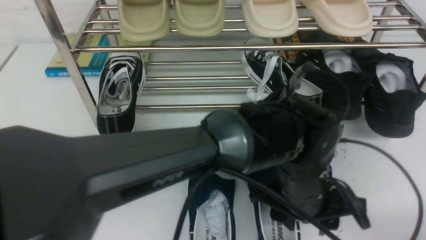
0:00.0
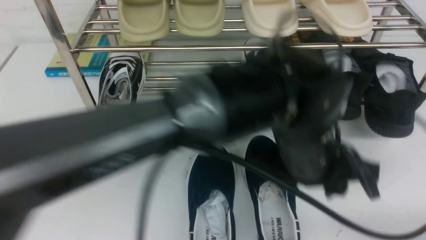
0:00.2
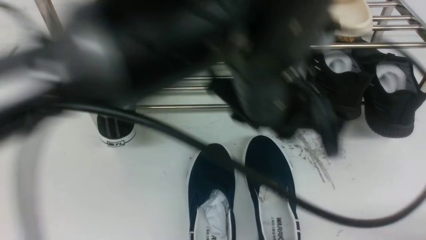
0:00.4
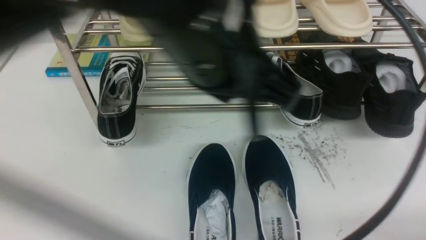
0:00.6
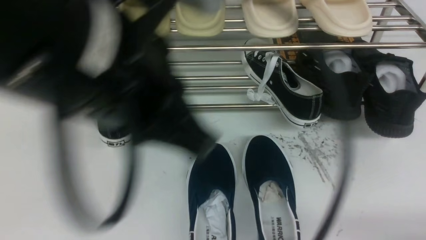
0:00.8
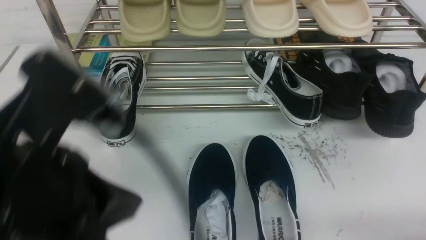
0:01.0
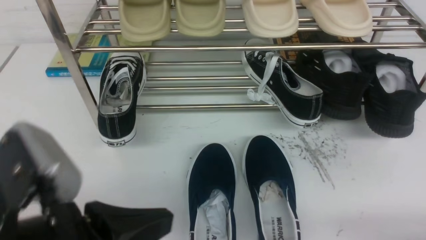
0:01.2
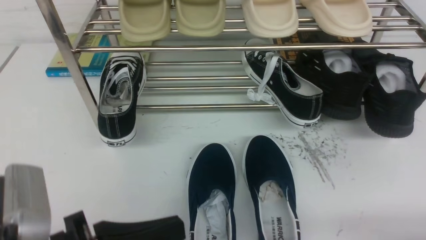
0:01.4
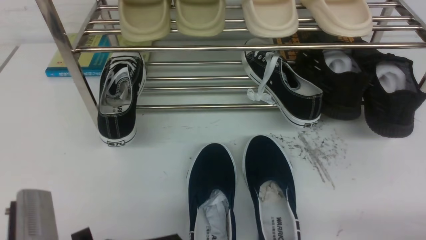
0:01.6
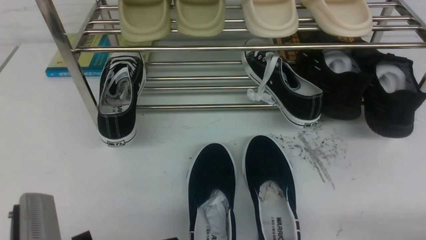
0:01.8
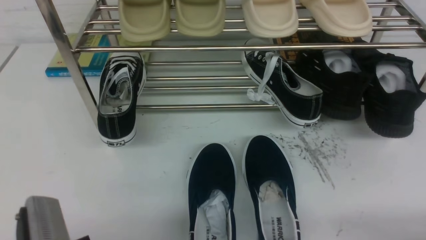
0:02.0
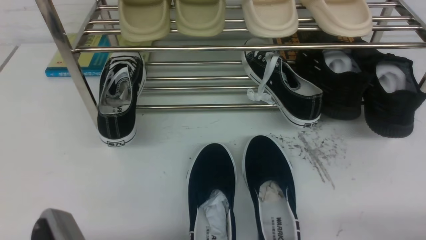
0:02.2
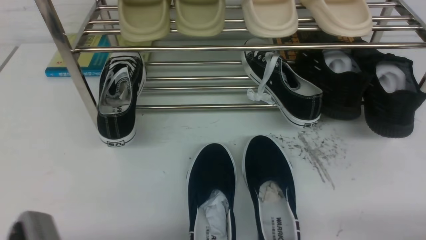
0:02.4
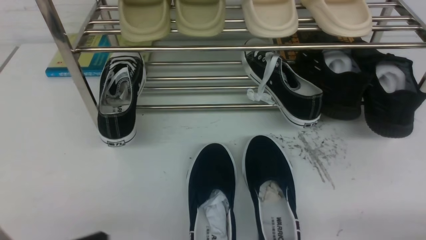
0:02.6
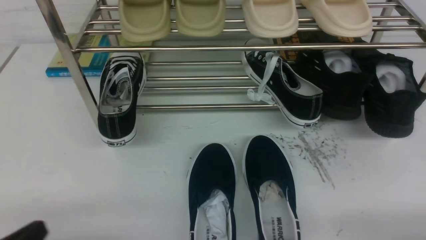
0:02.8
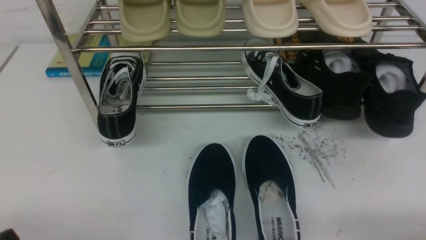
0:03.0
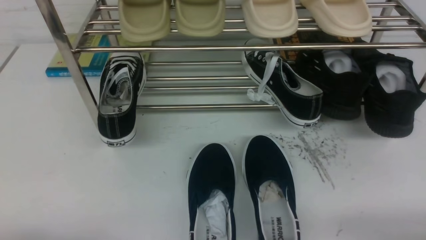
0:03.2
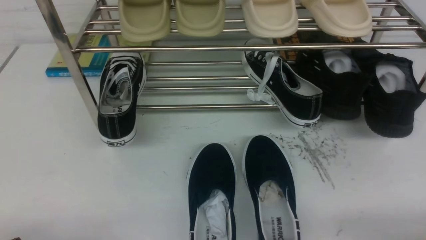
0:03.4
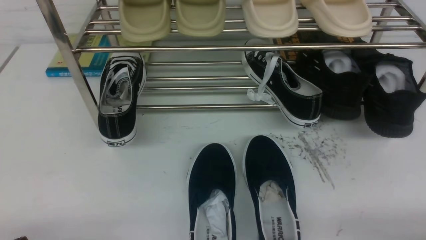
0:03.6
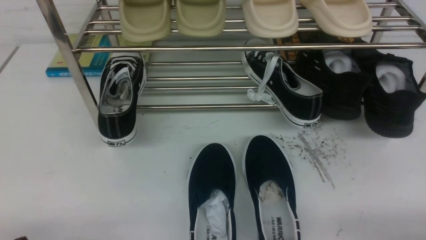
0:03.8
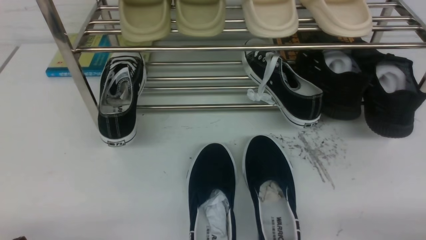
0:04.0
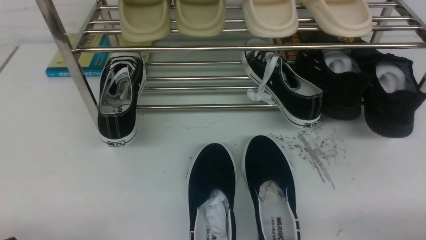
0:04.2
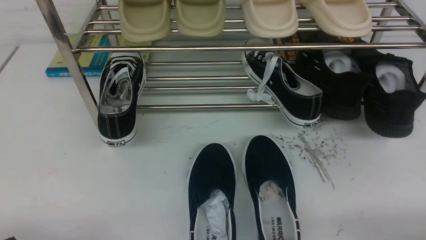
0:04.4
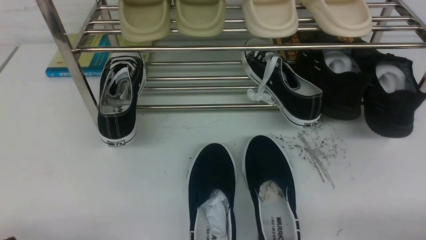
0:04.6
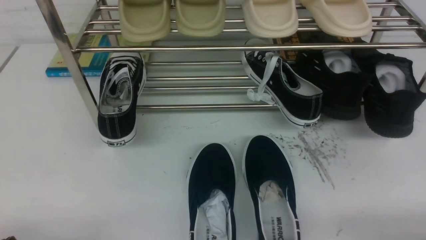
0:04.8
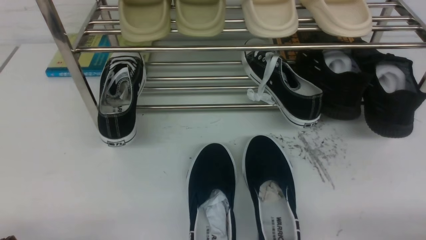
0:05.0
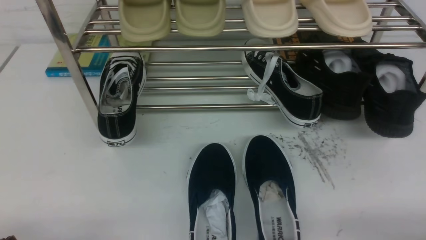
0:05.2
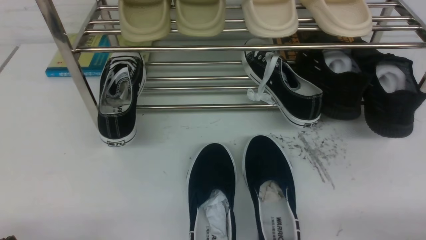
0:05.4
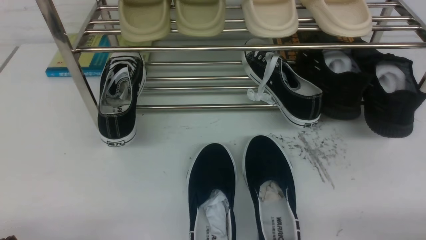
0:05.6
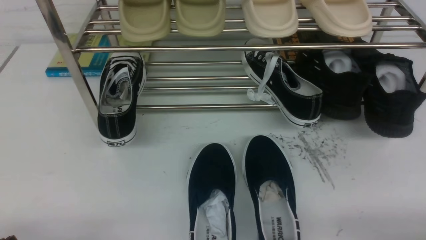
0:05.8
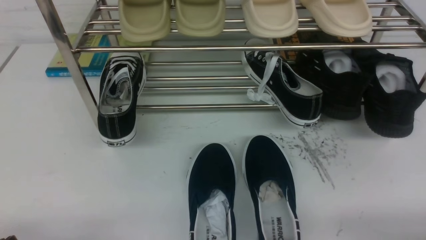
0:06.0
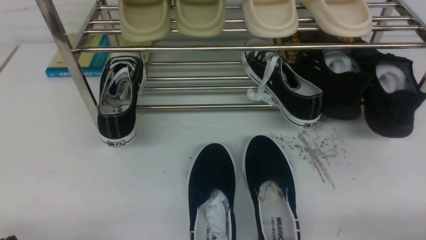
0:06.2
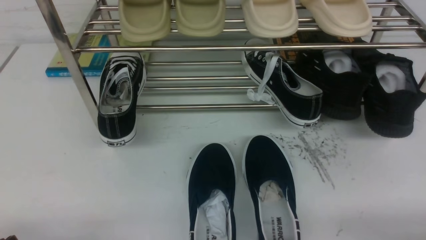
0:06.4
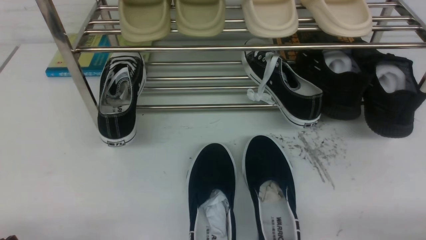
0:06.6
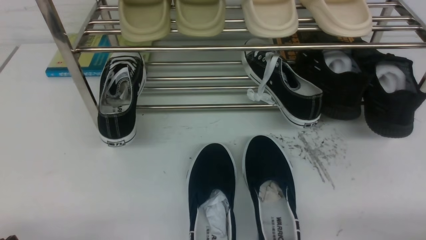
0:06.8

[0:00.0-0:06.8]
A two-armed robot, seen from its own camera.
0:00.0 to 0:01.4: The left gripper heads to the left and backward, covering about 30 cm, and closes.
0:01.4 to 0:02.8: The left gripper is displaced to the left and downward by some 10 cm.
0:04.0 to 0:06.8: Neither gripper changes place.

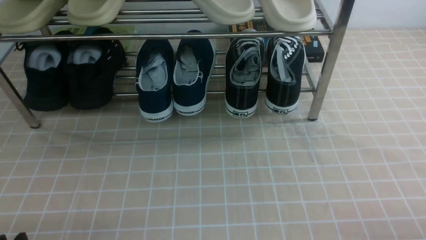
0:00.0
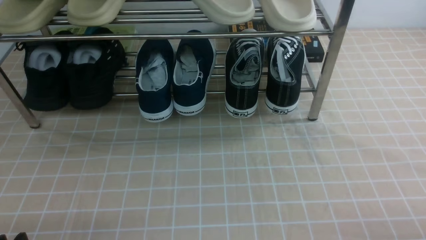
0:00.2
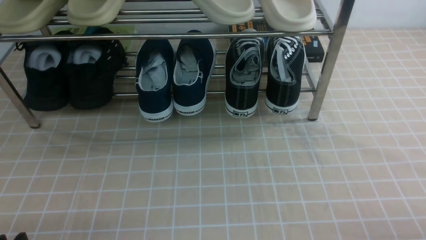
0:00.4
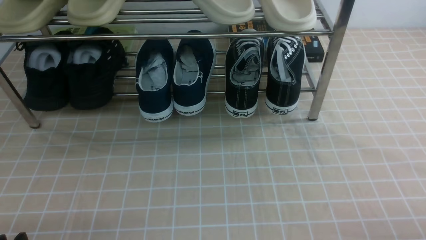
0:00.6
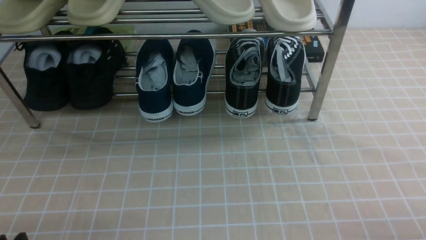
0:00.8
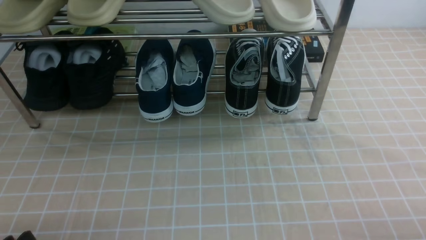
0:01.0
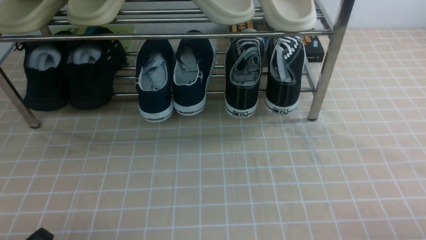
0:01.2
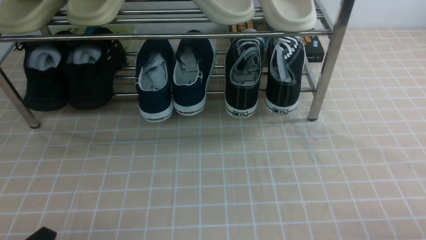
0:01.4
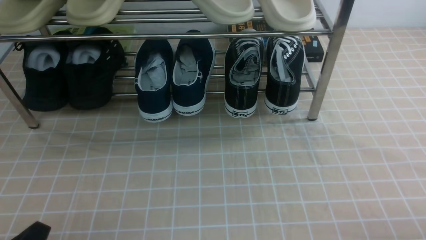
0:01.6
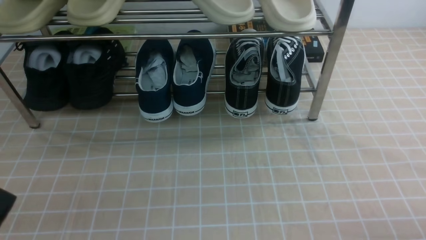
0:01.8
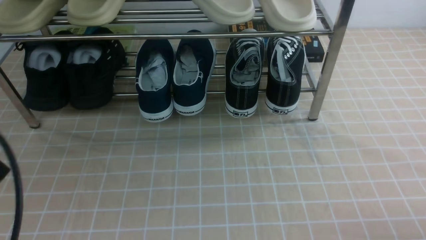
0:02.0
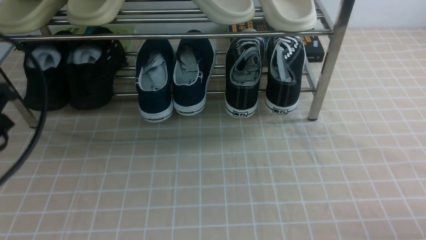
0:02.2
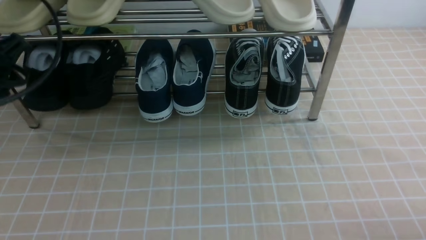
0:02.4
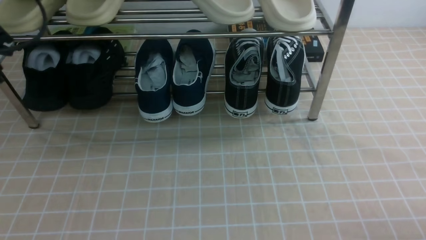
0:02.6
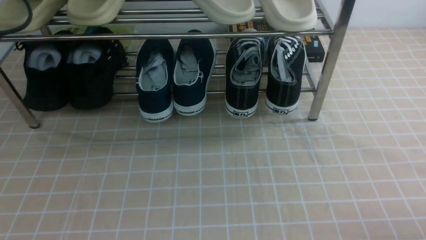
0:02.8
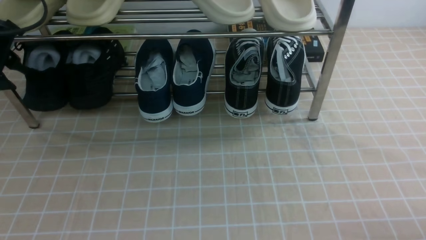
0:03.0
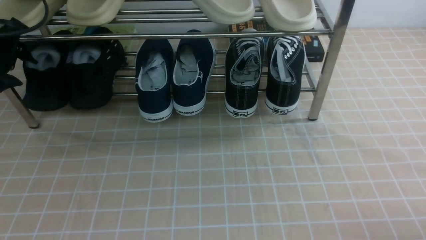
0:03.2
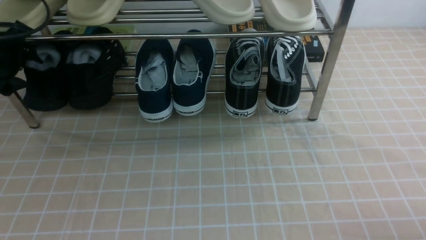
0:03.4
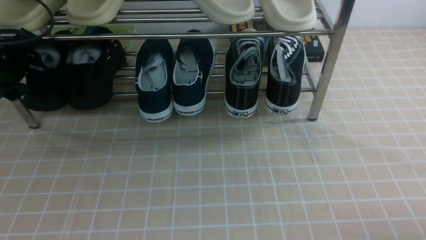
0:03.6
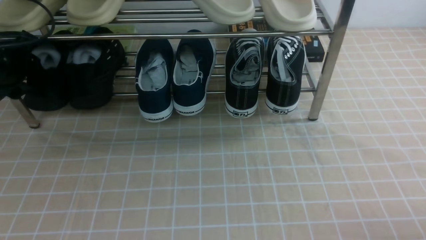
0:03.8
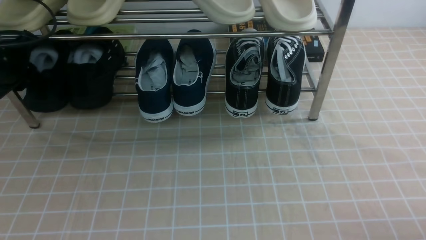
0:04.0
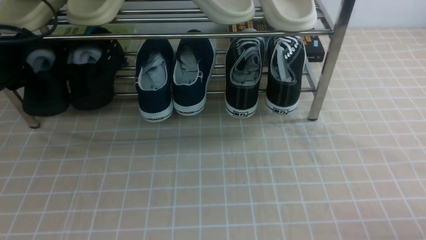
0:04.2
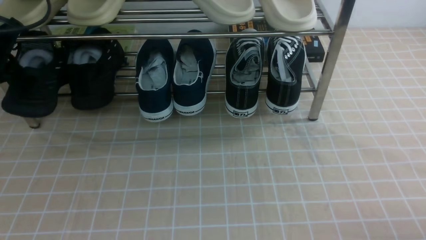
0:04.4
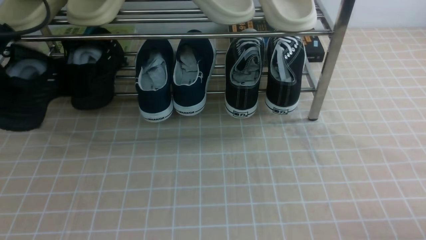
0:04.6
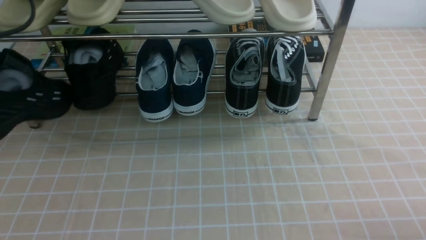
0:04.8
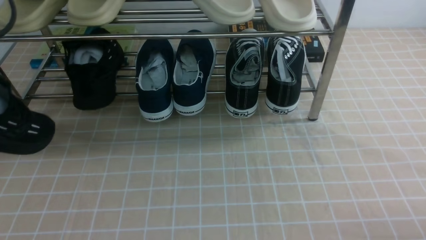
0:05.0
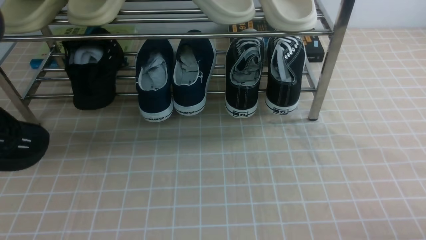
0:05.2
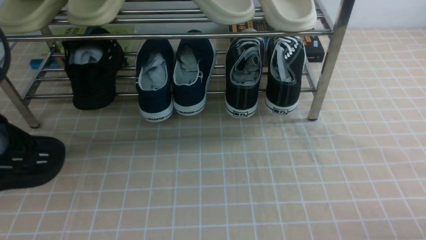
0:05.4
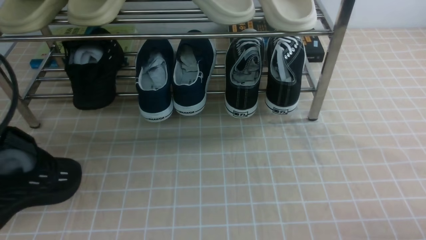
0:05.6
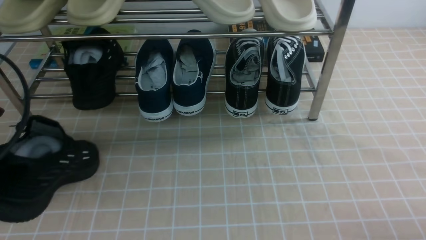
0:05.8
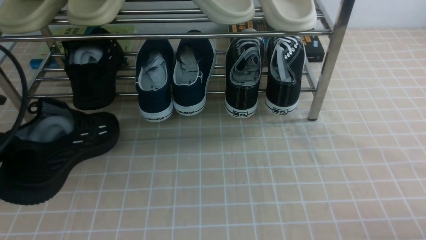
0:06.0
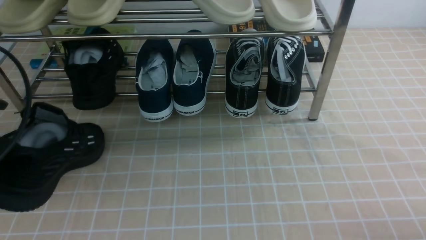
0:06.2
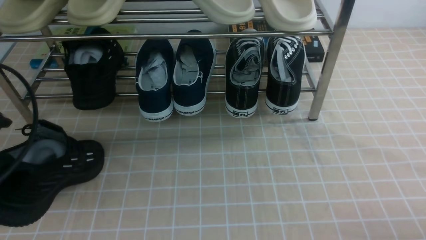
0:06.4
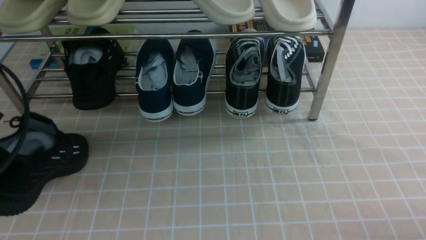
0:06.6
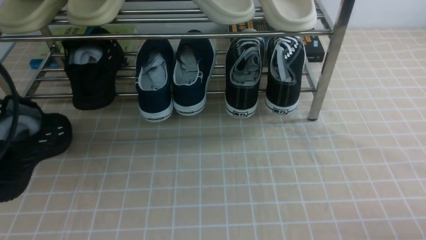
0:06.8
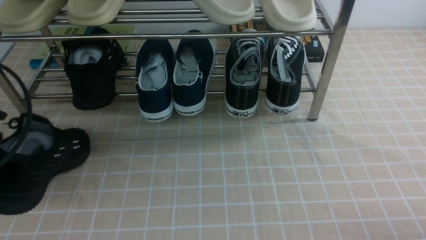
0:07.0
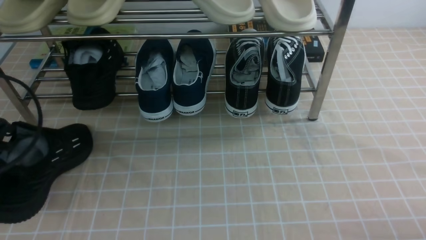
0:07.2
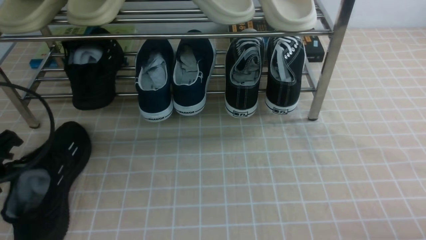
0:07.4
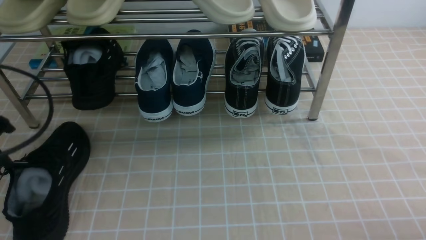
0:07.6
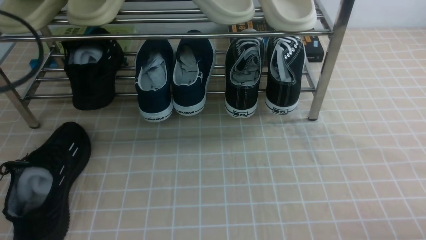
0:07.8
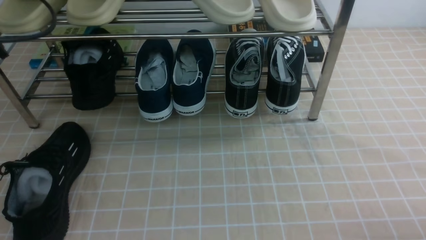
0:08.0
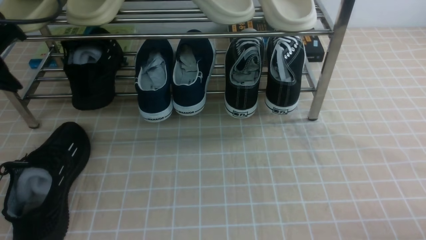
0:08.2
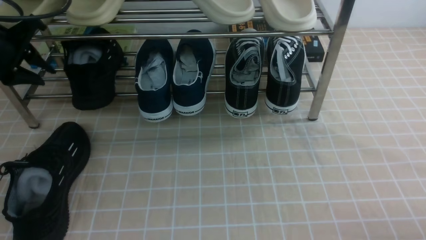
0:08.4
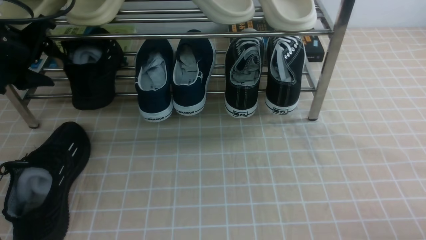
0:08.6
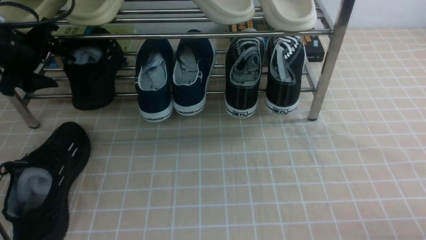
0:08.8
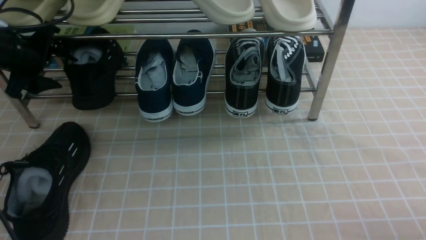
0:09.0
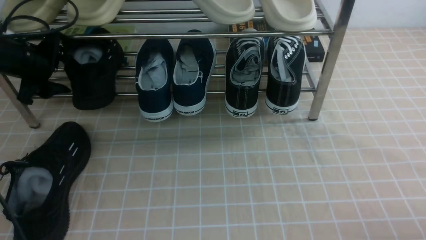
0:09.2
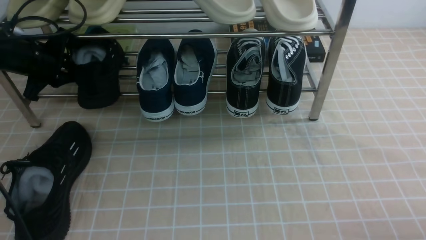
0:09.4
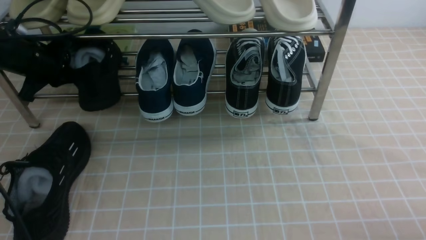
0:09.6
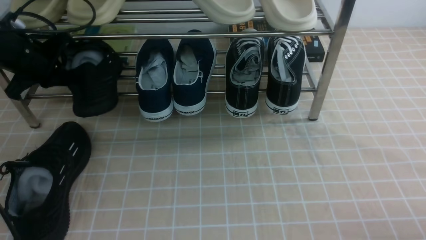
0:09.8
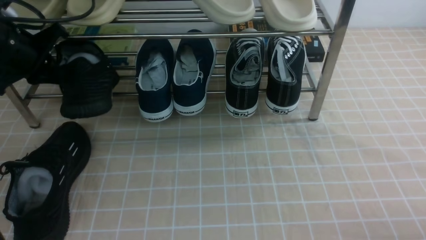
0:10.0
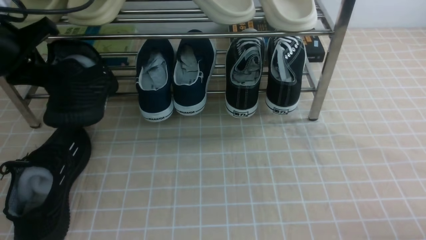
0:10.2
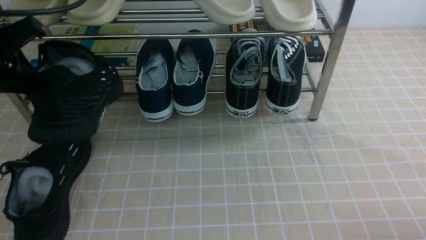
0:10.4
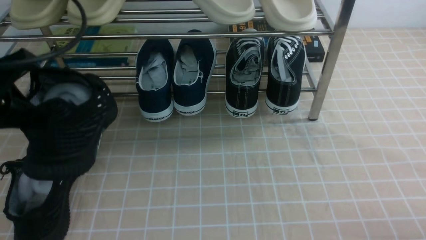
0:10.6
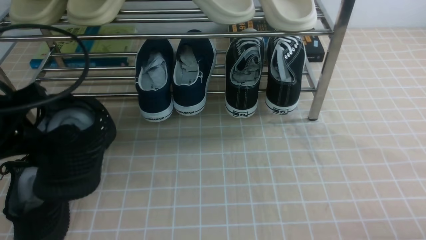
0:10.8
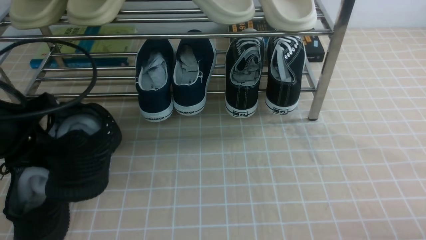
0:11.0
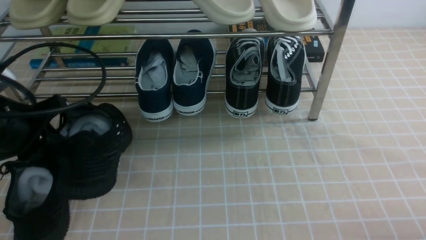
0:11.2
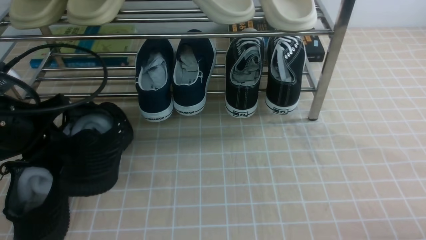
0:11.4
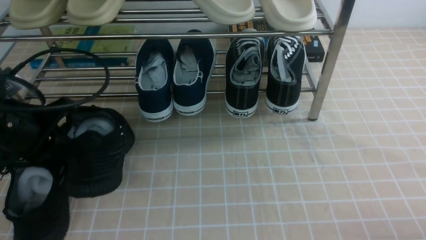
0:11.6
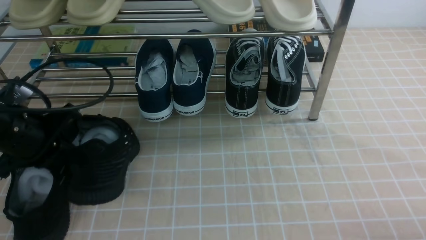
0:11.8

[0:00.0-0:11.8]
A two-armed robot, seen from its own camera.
Step, 0:00.0 to 0:04.0: use the left arm to clamp a shoe on the left side of the shoe rack.
Step, 0:04.2 to 0:07.2: Use your left arm to remove the clamped shoe from the shoe rack and put it down.
Step, 0:07.4 to 0:09.4: use the left arm to clamp a shoe on the left side of the shoe rack.
0:01.4 to 0:03.0: The left gripper shifts about 35 cm forward and upward, and closes and opens again.
0:03.0 to 0:04.4: The left gripper closes its fingers.
0:04.4 to 0:06.0: The left gripper travels backward by some 15 cm.
0:06.0 to 0:07.4: The left gripper opens up.
0:07.4 to 0:08.8: The left gripper is displaced forward by approximately 20 cm, and opens its fingers.
0:08.8 to 0:10.4: The left gripper goes about 15 cm backward and upward, and closes its fingers.
0:10.4 to 0:11.8: The left gripper travels downward by roughly 10 cm.
